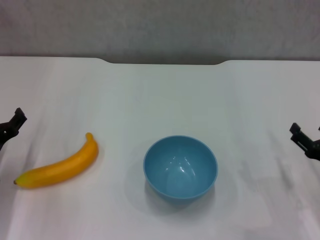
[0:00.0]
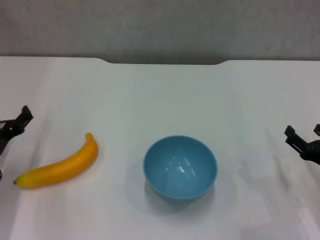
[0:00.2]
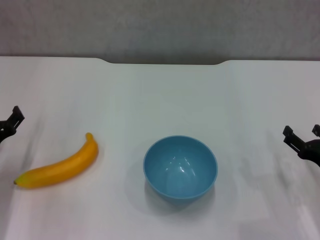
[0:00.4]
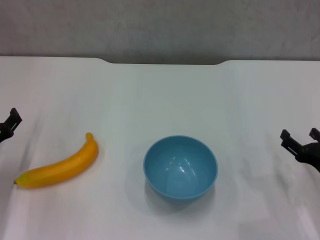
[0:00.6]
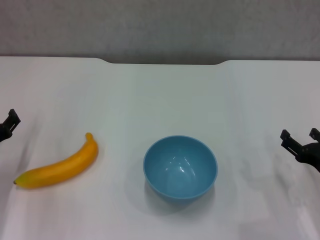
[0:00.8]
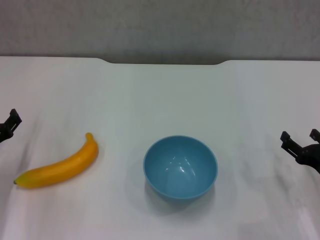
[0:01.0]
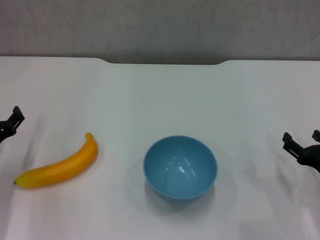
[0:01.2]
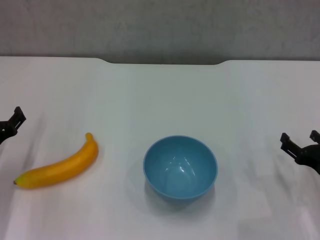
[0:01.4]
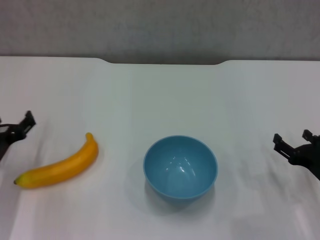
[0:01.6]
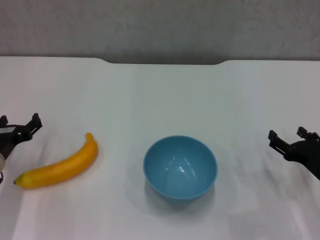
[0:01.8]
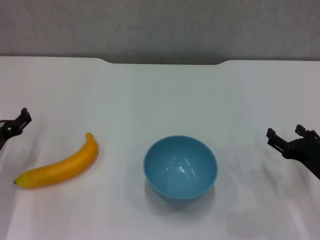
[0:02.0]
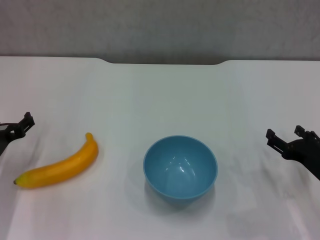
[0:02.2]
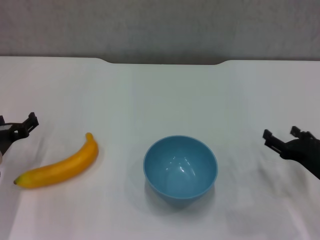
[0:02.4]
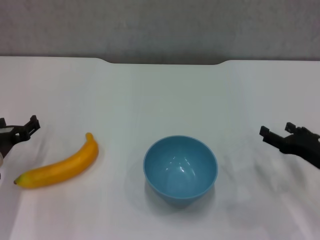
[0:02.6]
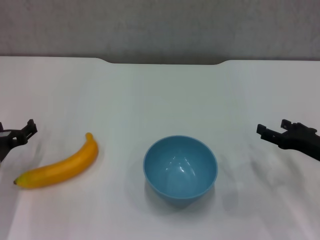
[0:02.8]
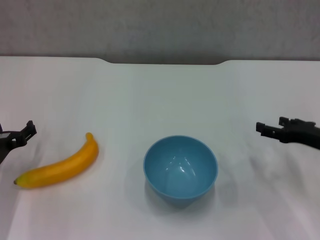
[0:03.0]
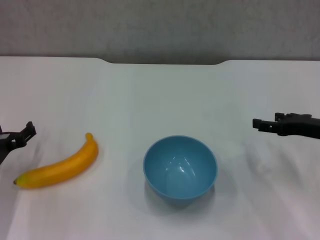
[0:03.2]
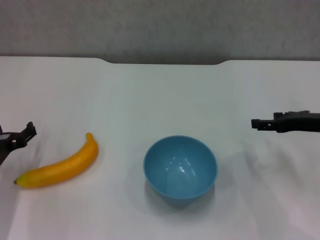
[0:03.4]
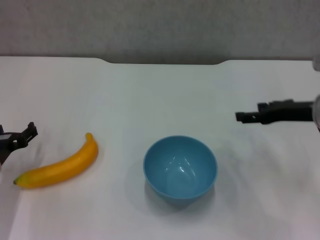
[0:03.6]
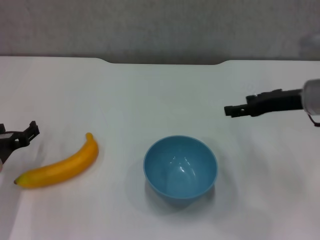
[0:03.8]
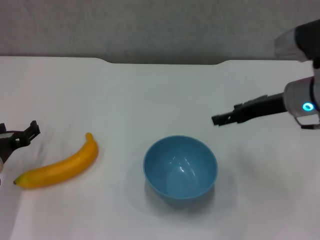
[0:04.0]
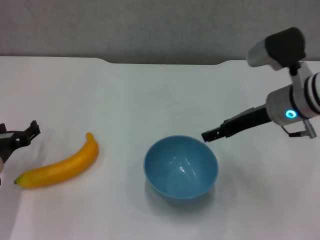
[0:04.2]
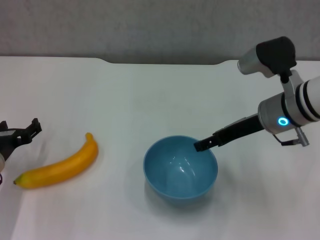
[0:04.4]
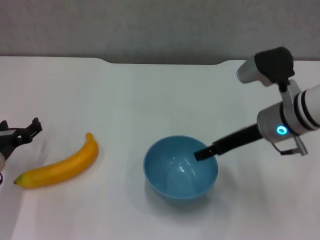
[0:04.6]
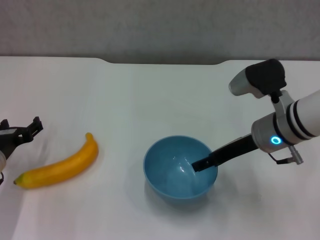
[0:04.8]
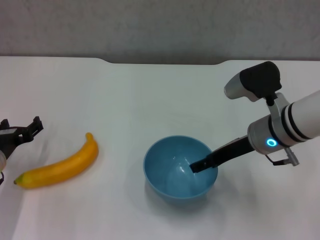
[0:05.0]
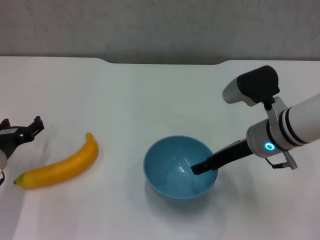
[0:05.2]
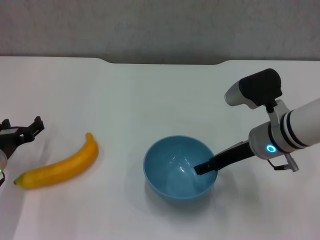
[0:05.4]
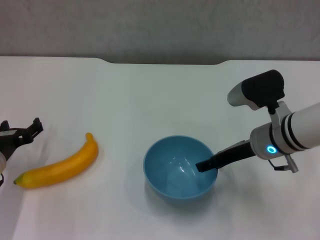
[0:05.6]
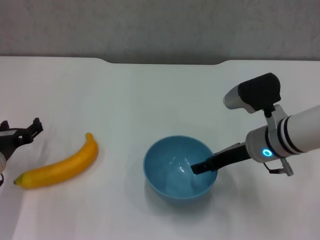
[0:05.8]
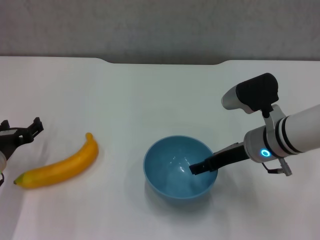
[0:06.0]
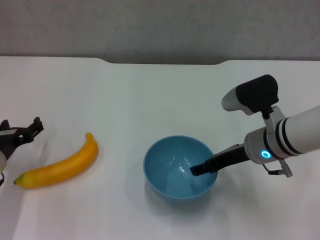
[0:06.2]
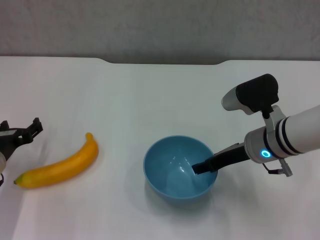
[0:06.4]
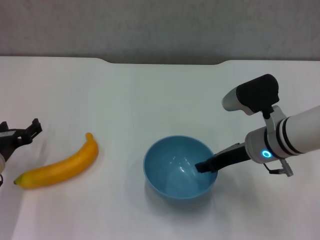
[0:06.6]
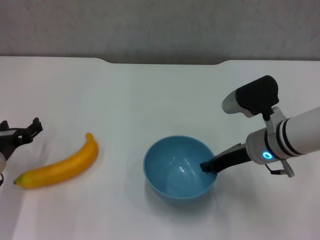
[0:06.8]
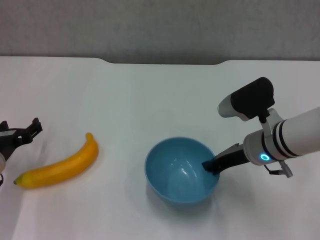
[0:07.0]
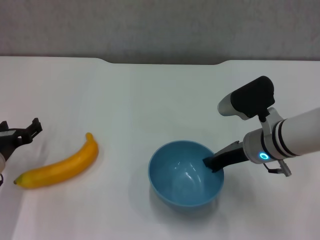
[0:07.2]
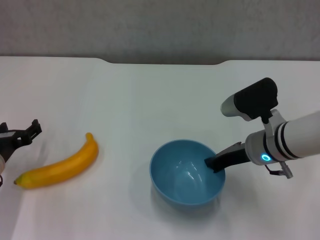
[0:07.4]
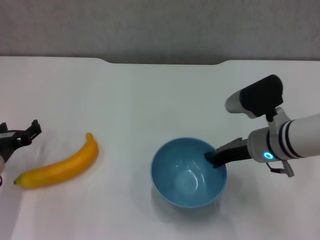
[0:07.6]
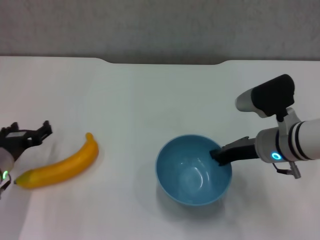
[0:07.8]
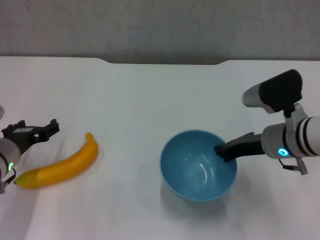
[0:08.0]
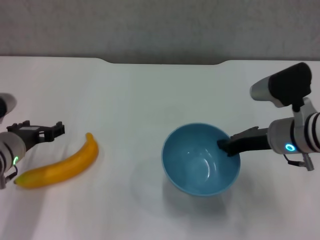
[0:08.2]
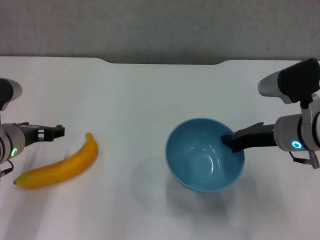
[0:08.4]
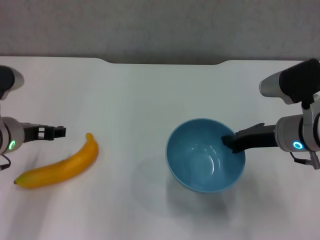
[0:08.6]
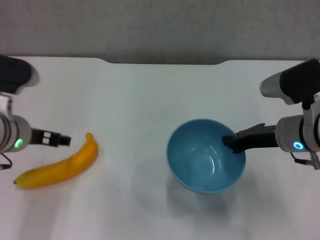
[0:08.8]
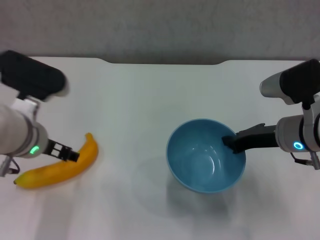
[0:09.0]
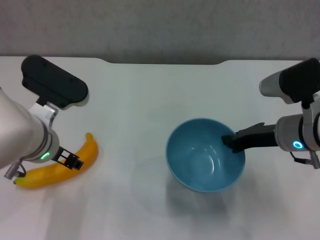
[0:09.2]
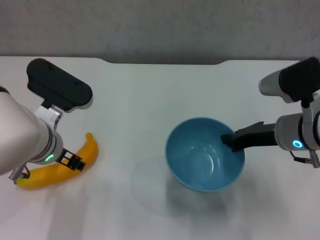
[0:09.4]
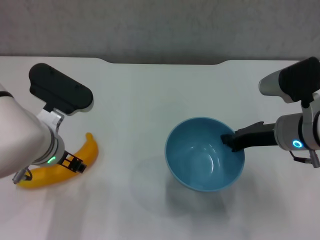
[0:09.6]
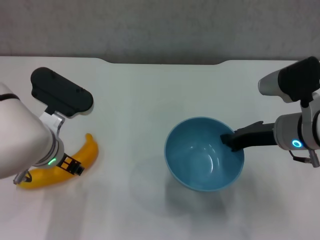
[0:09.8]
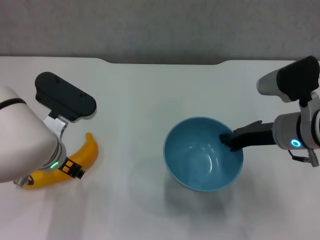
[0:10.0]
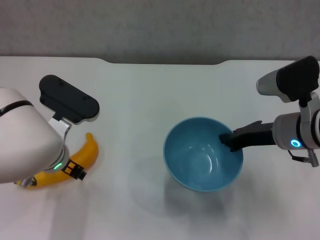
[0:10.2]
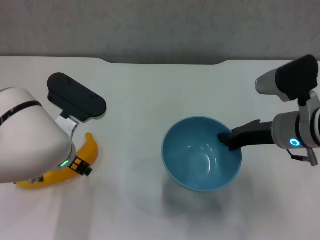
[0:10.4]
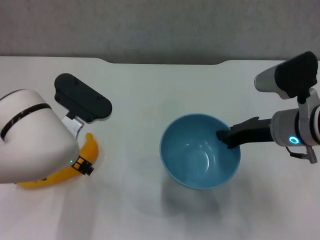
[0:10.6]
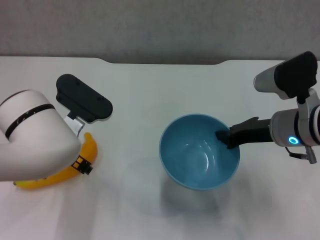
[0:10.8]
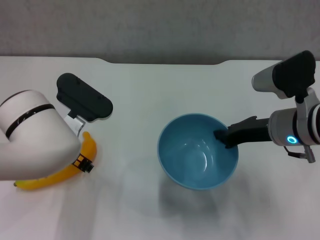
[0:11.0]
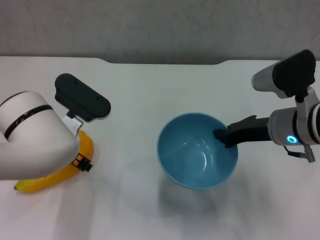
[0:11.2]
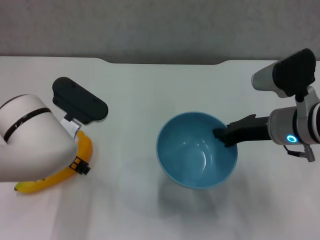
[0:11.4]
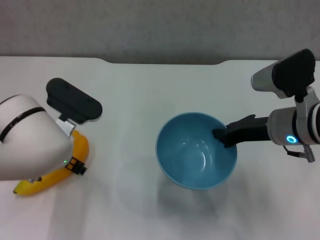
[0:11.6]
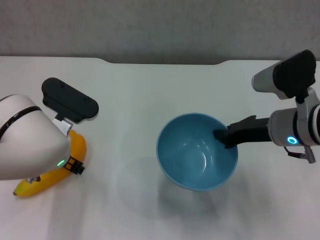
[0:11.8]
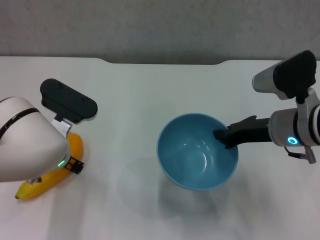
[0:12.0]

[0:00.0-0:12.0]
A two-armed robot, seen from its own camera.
Step, 0:00.0 to 0:07.2: Grasp the blue bowl with right gripper.
Step, 0:07.4 to 0:08.2: Lift the blue bowl with right gripper.
0:00.0 to 0:01.6: The right gripper opens its fingers.
0:01.6 to 0:03.0: The right gripper moves forward and upward, about 10 cm.
0:03.0 to 0:04.4: The right gripper goes approximately 15 cm to the left and upward.
0:04.4 to 0:06.0: The right gripper is displaced downward by roughly 5 cm.
0:06.0 to 0:07.6: The right gripper closes up.
0:07.6 to 0:09.0: The left gripper heads upward and to the right, covering about 15 cm.
0:09.0 to 0:10.4: The left gripper changes place by roughly 5 cm.
0:10.4 to 0:12.0: There are only small adjustments of the grippers.

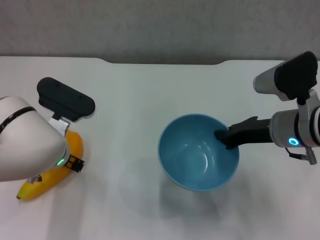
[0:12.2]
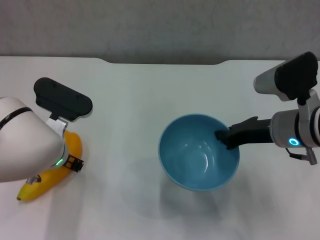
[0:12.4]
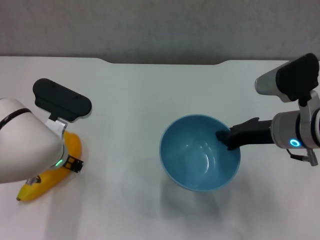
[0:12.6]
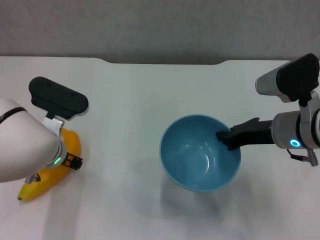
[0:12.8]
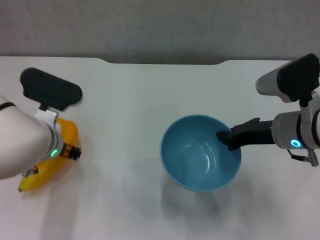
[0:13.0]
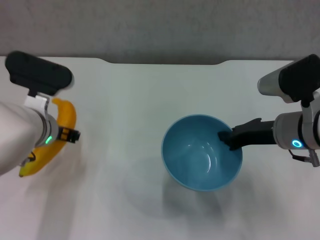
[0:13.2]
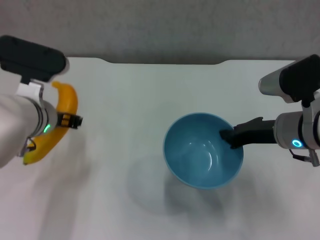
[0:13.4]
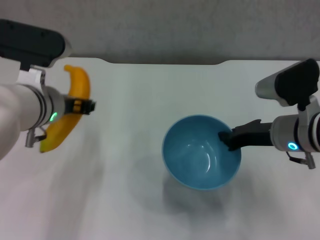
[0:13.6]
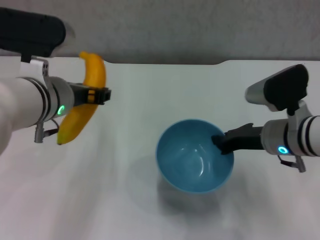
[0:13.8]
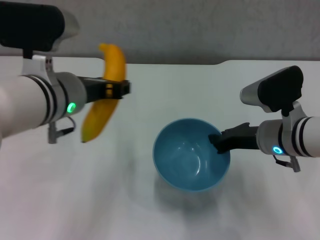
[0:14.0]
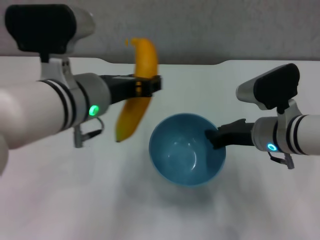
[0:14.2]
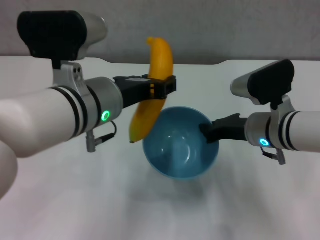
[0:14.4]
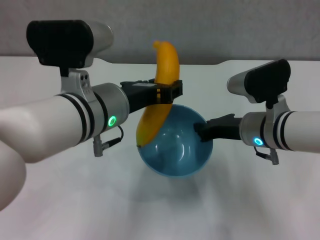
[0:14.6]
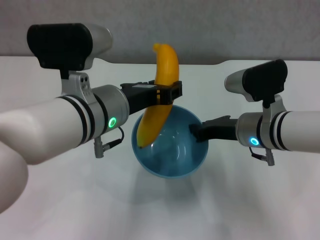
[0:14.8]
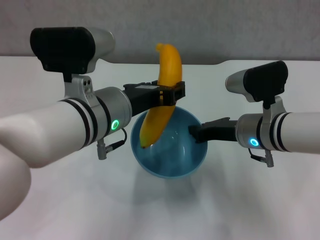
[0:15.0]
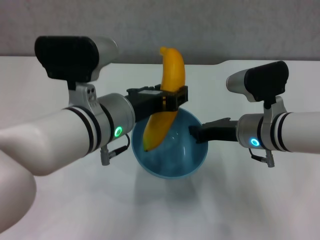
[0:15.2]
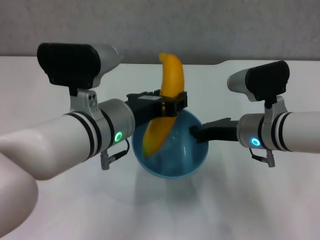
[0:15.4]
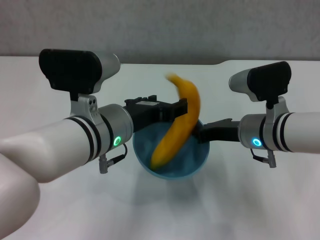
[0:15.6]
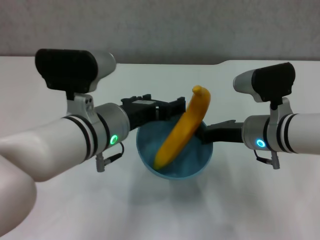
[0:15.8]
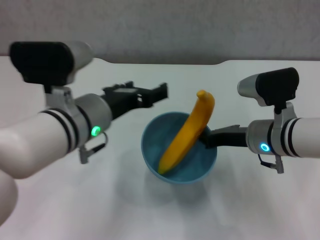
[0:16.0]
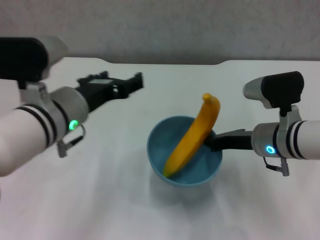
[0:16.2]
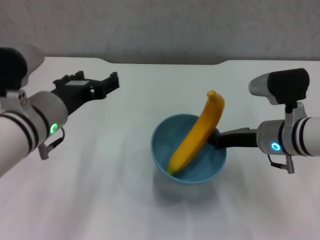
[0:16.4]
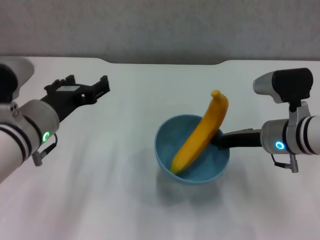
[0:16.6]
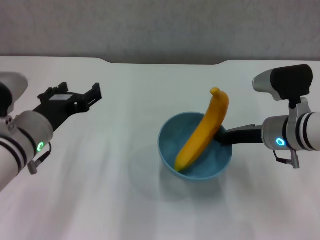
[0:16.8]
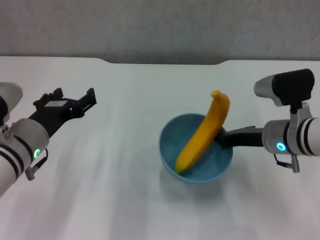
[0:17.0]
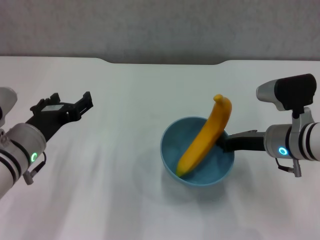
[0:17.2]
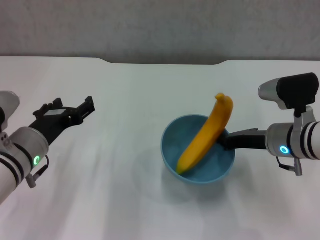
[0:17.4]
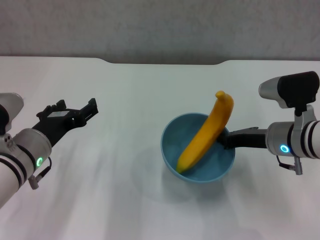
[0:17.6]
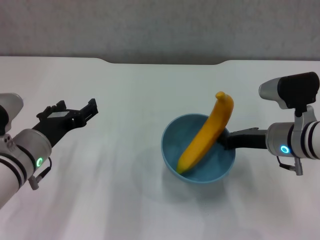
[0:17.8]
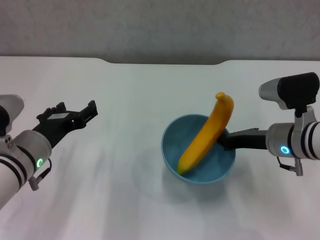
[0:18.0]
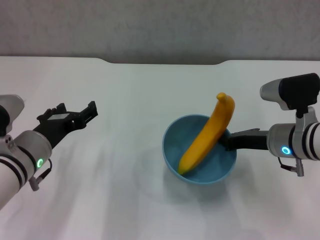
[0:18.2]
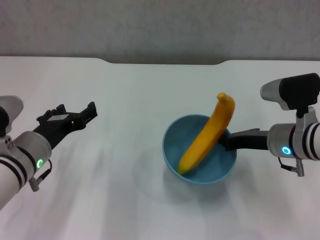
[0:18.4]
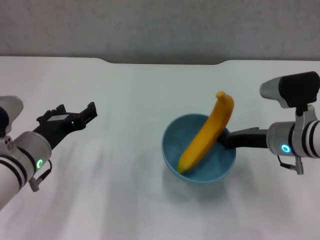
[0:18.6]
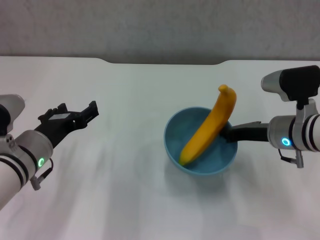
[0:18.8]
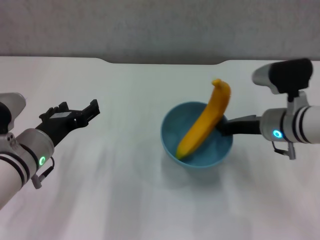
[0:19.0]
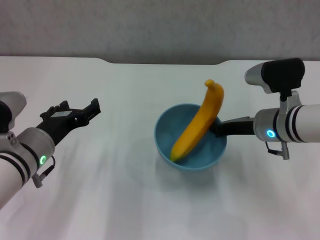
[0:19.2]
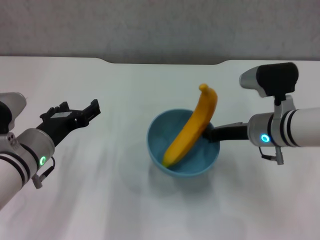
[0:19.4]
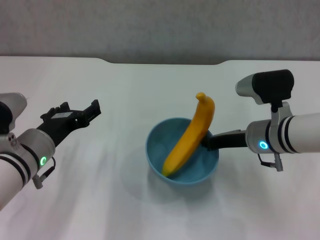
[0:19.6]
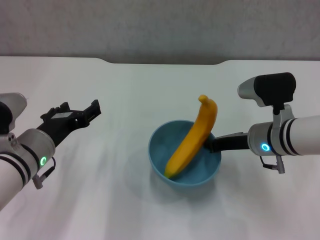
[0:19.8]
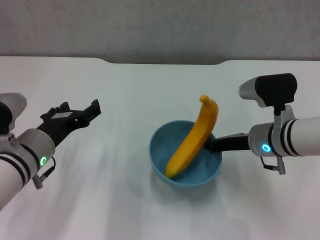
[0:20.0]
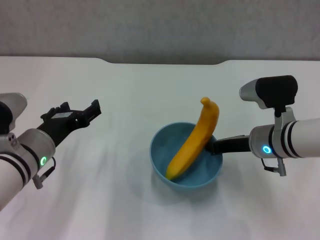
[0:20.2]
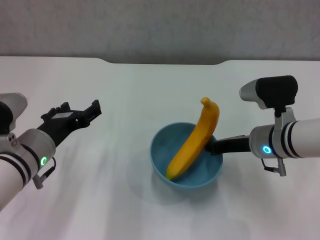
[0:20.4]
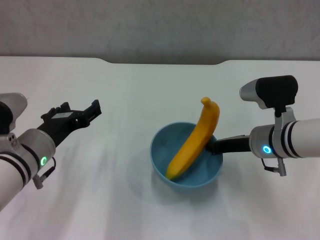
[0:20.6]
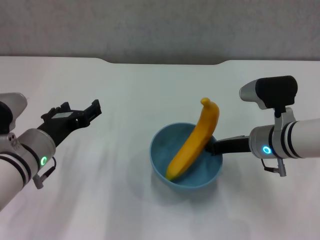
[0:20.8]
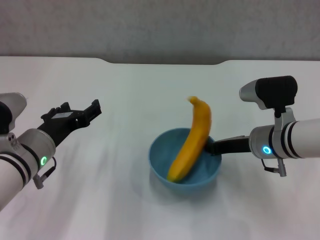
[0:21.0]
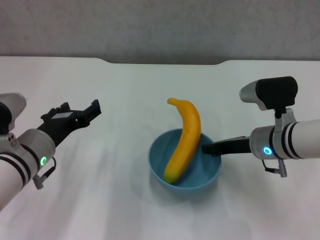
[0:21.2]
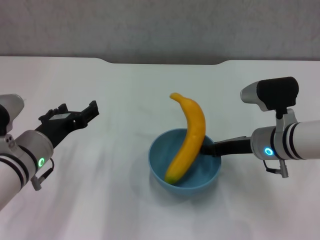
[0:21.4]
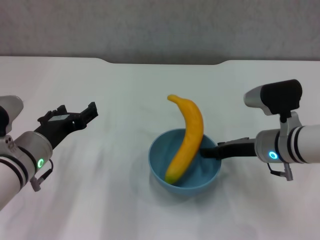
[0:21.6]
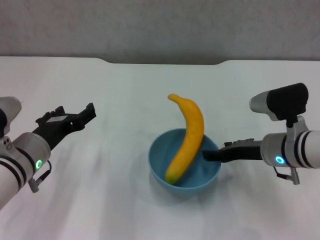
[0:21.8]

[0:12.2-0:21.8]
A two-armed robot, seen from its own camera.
Step, 0:12.6 to 0:15.6: Place the banana in the blue bowl with left gripper.
0:12.2 to 0:13.8: The left gripper travels upward by some 10 cm.
0:13.8 to 0:15.4: The left gripper is displaced to the right by some 5 cm.
0:15.4 to 0:17.0: The left gripper travels to the left and downward by about 15 cm, and opens.
0:17.0 to 0:20.2: The grippers move only a little.
0:20.2 to 0:21.8: The right gripper opens.

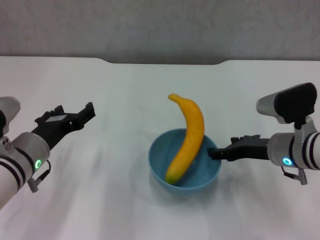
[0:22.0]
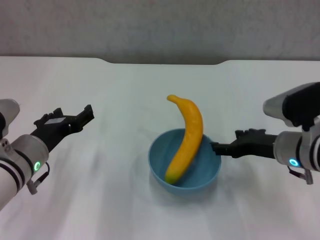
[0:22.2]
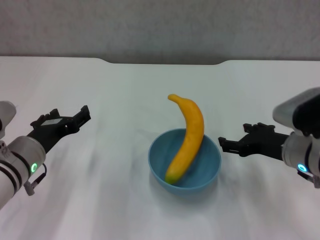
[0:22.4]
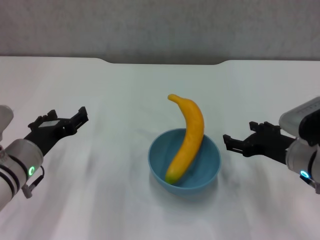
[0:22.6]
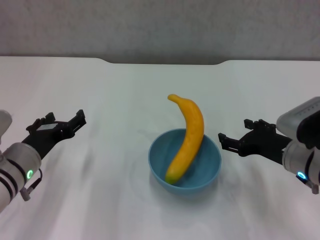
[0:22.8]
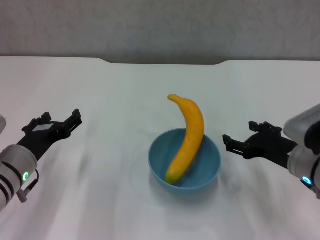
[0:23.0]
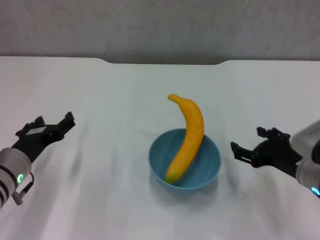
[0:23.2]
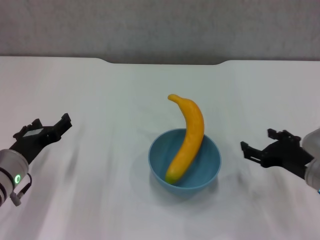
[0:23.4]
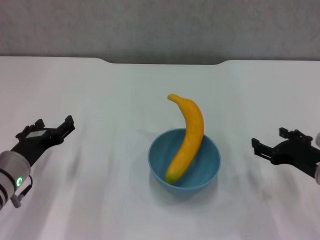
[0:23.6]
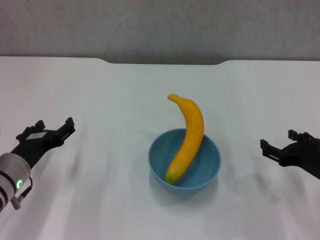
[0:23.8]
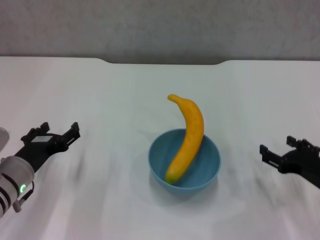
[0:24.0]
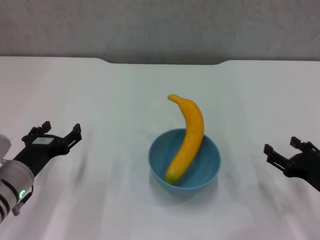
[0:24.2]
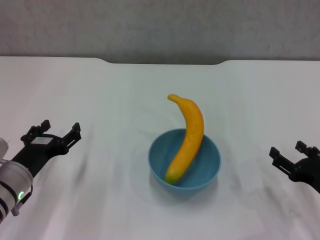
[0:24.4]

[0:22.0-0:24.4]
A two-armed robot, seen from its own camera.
0:22.0 to 0:23.2: The right gripper heads backward, covering approximately 5 cm.
0:23.2 to 0:24.4: The right gripper heads to the right, covering about 5 cm.
